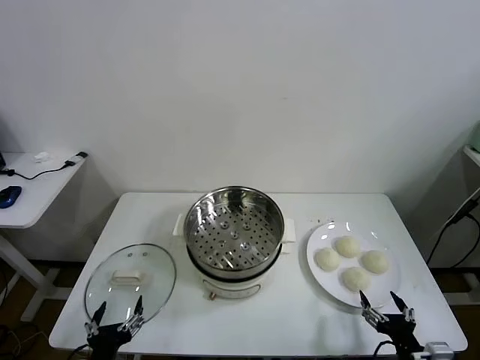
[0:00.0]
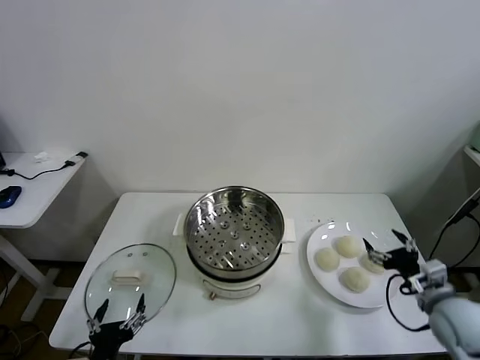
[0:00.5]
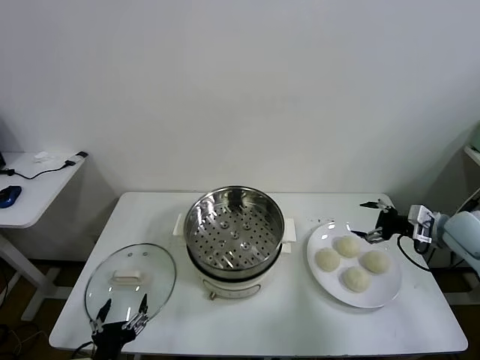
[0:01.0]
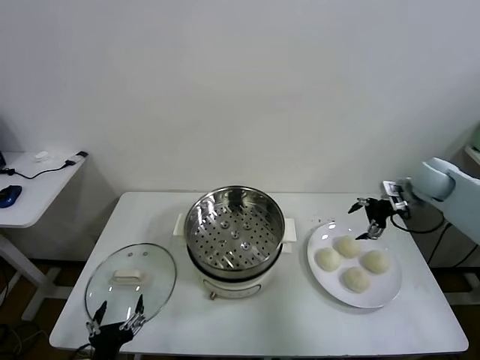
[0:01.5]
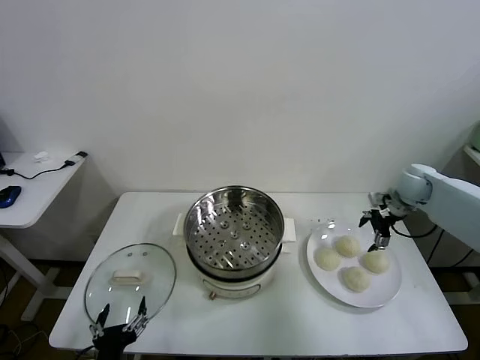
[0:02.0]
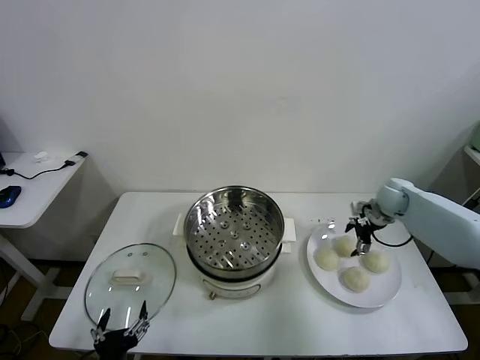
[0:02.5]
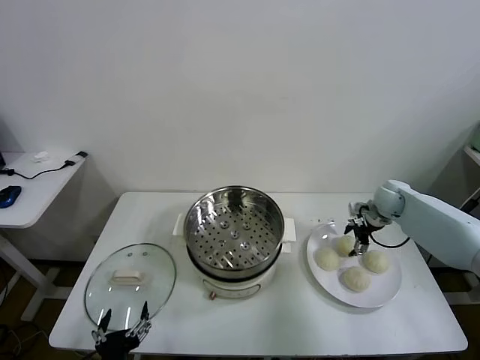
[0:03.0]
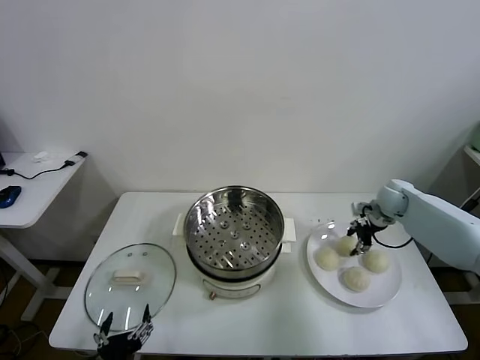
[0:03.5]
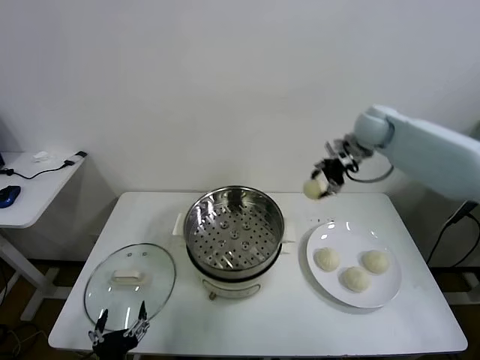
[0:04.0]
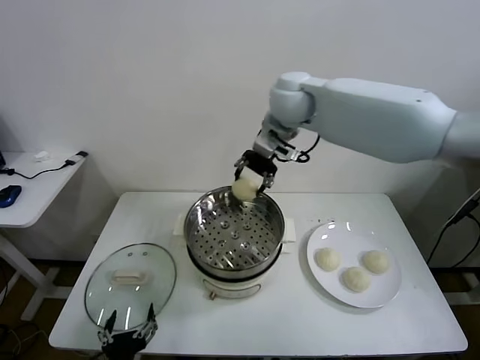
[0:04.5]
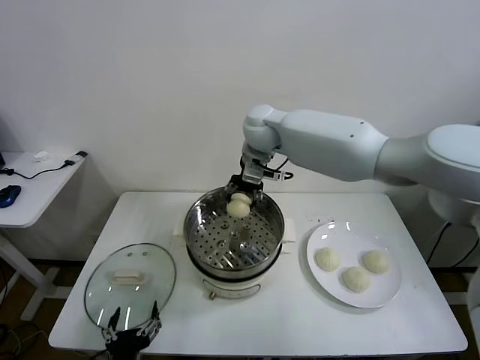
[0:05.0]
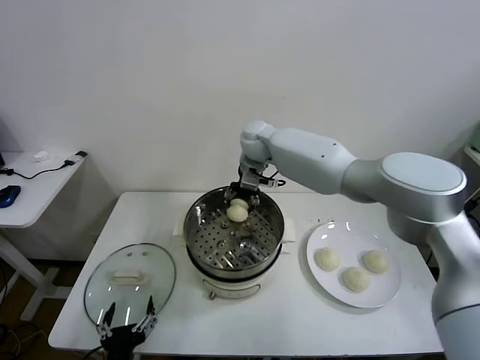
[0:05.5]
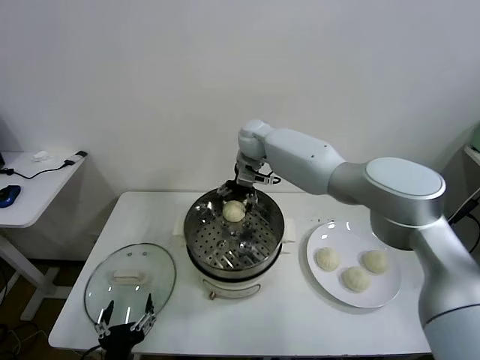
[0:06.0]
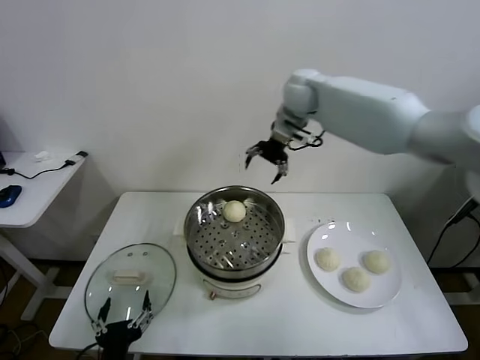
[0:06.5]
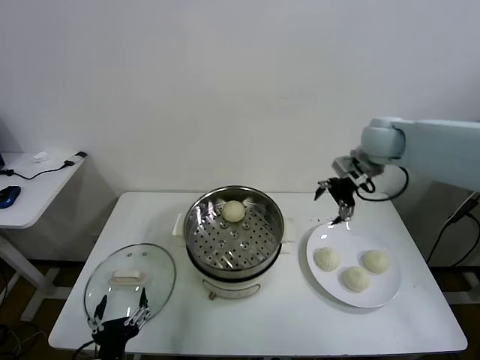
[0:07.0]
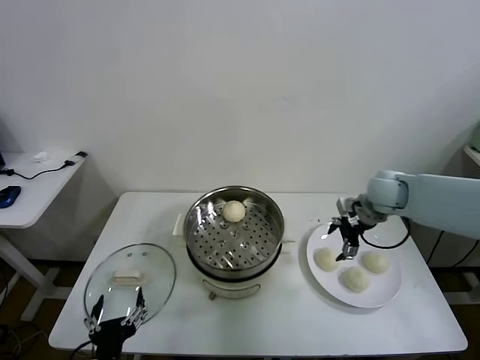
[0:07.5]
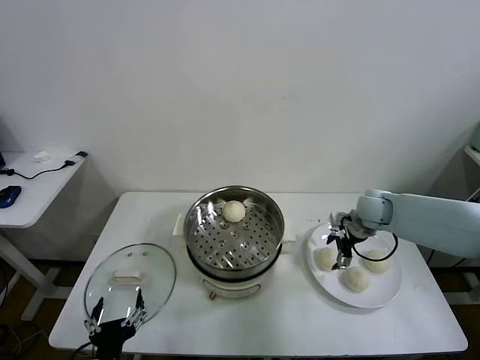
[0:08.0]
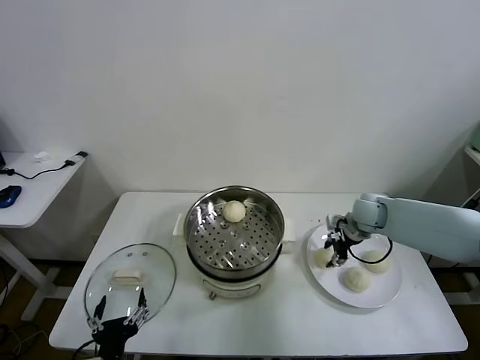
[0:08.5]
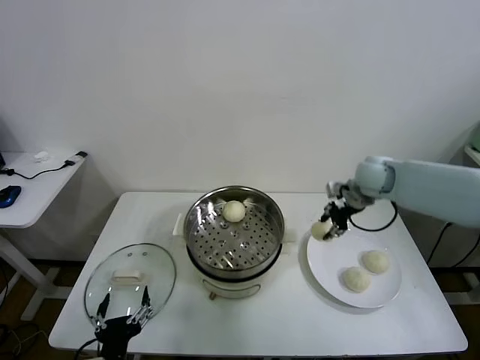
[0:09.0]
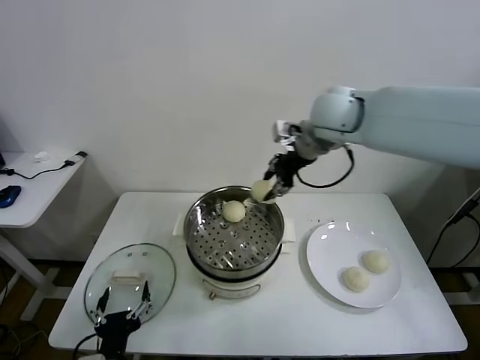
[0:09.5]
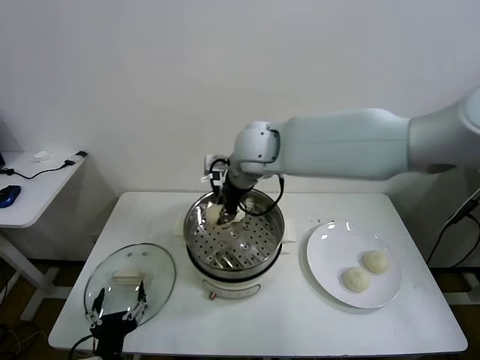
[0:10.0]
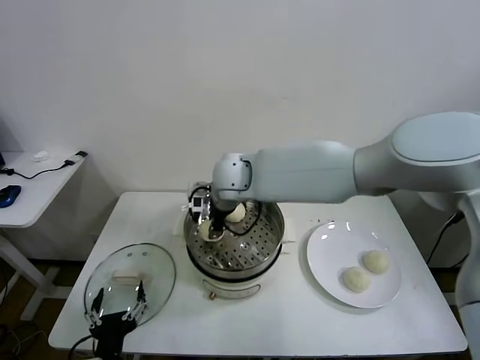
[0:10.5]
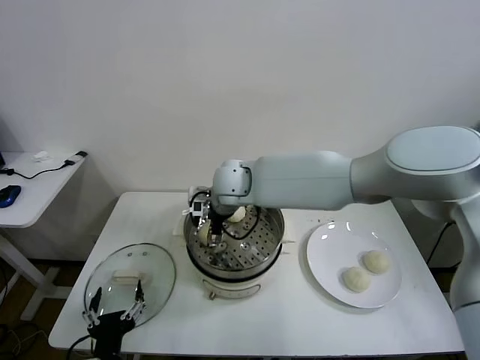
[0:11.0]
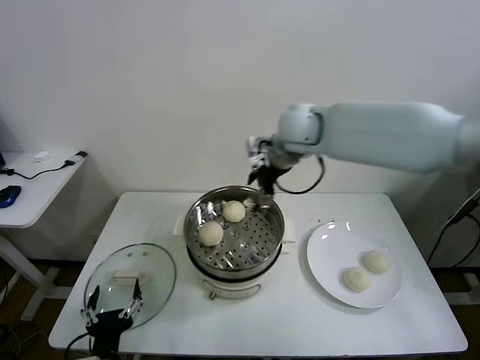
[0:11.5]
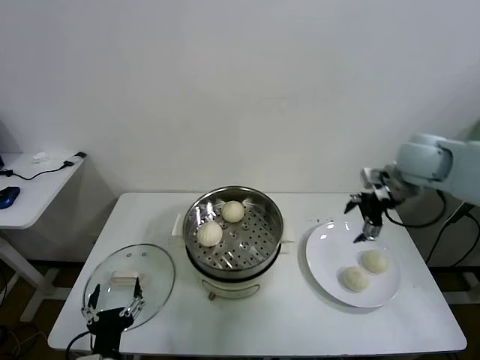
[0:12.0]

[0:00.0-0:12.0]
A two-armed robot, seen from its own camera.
Task of the whole recording: take steamed baozi put them in steamer.
Step, 0:00.0 to 0:03.0: Grasp the baozi in the plate with right gripper.
Step, 0:03.5 to 0:06.0: Place the baozi on the steamer with right gripper.
Step, 0:06.5 to 0:08.0: Grasp the baozi in the plate with right gripper.
Step, 0:09.0 to 0:11.0: Place the baozi on the steamer with right gripper.
0:02.0 to 0:04.0: The right gripper moves upward and to the left, approximately 25 cm, and closes up.
0:04.0 to 0:06.0: The right gripper shifts roughly 25 cm to the left, and opens up.
0:06.0 to 0:08.0: The right gripper shifts about 35 cm to the right, downward and backward.
0:08.0 to 0:10.0: The right gripper shifts about 35 cm to the left and upward, and closes.
0:10.0 to 0:12.0: The right gripper goes about 35 cm to the right, and opens up.

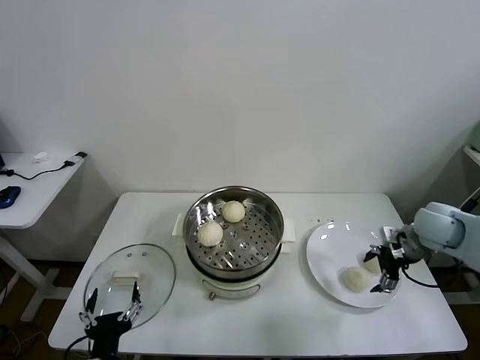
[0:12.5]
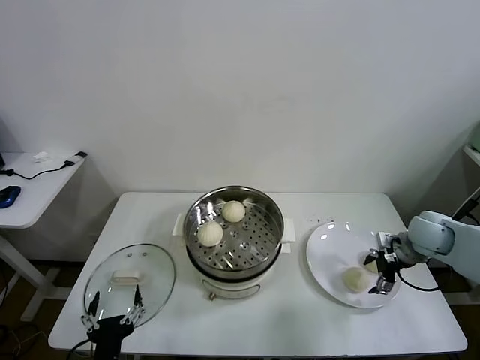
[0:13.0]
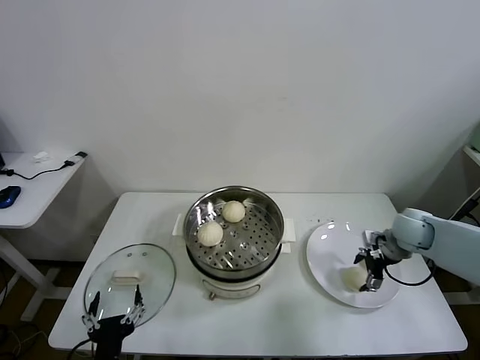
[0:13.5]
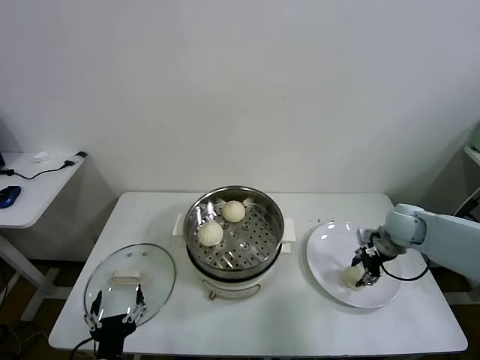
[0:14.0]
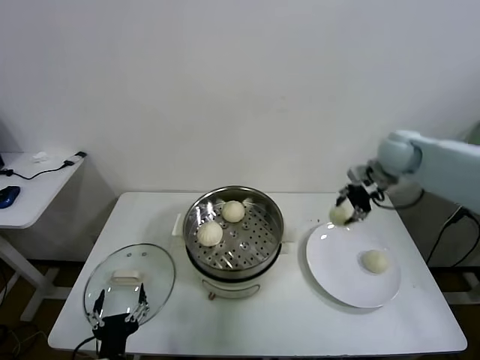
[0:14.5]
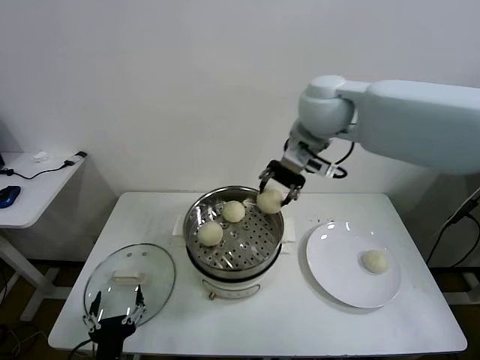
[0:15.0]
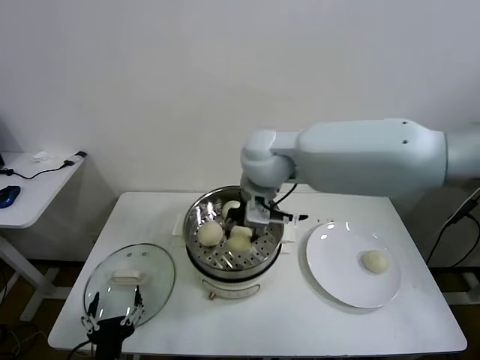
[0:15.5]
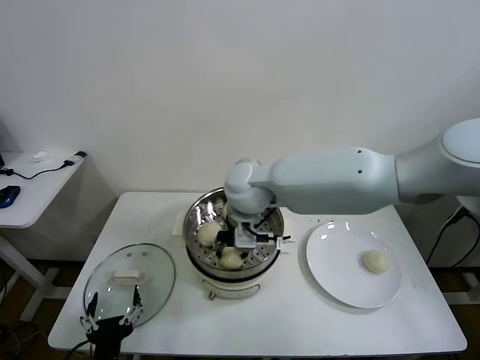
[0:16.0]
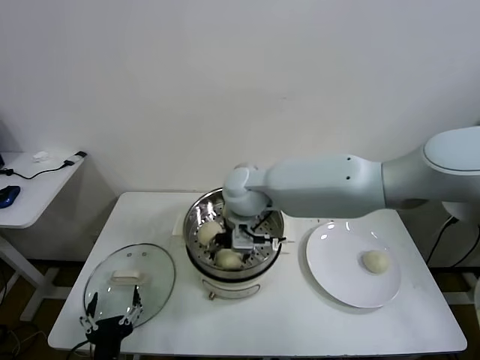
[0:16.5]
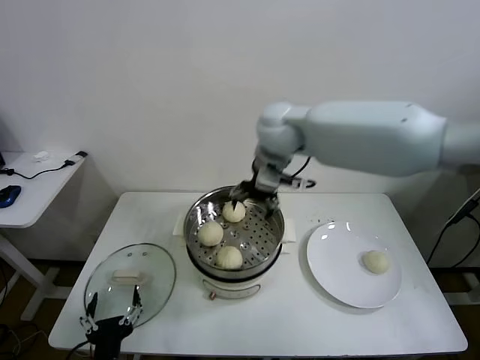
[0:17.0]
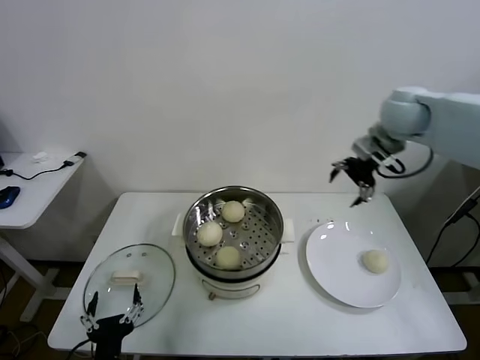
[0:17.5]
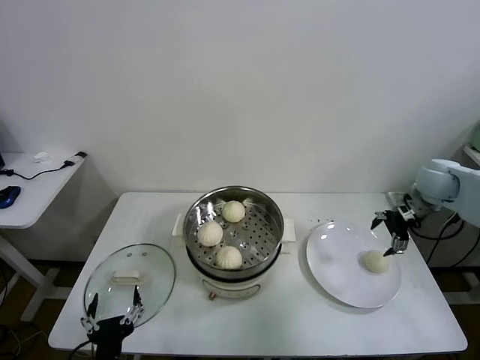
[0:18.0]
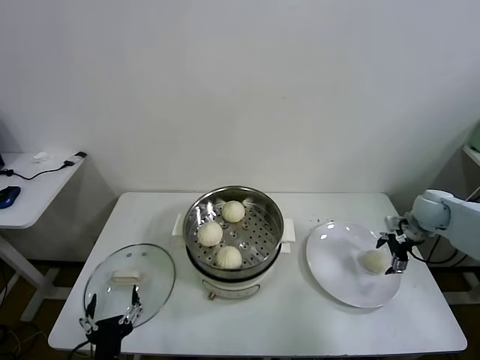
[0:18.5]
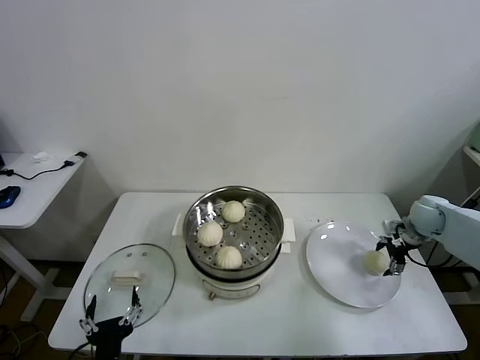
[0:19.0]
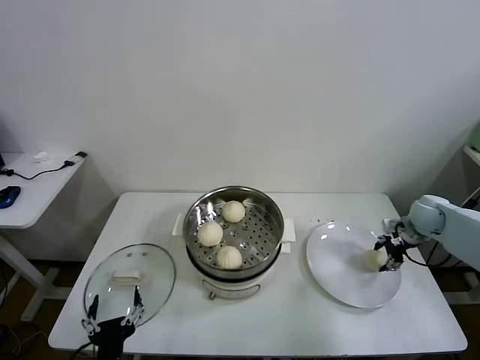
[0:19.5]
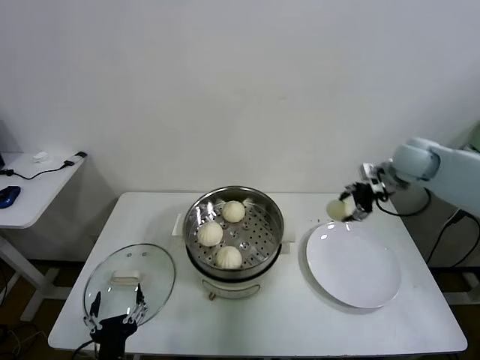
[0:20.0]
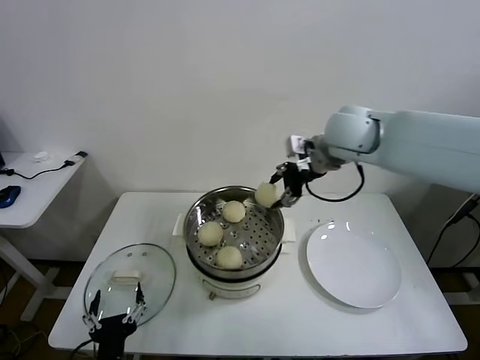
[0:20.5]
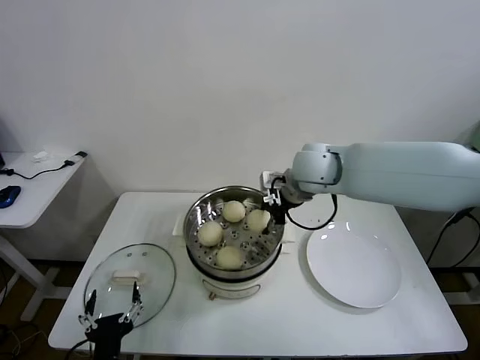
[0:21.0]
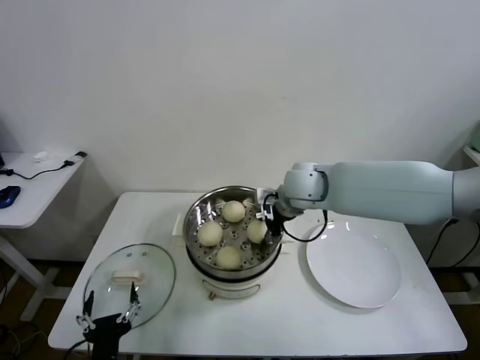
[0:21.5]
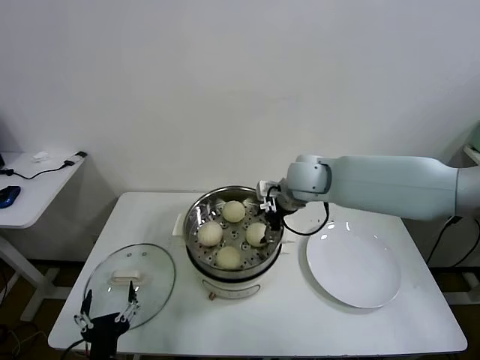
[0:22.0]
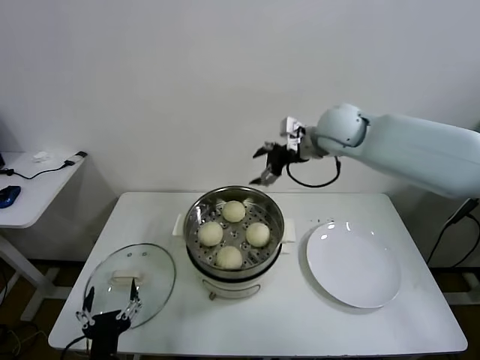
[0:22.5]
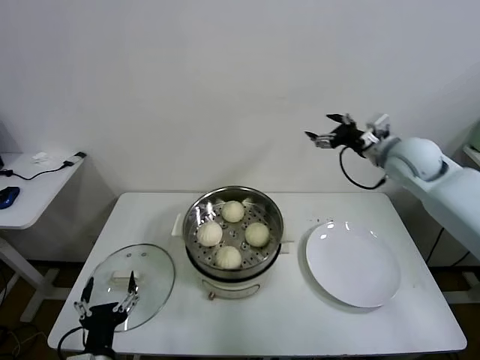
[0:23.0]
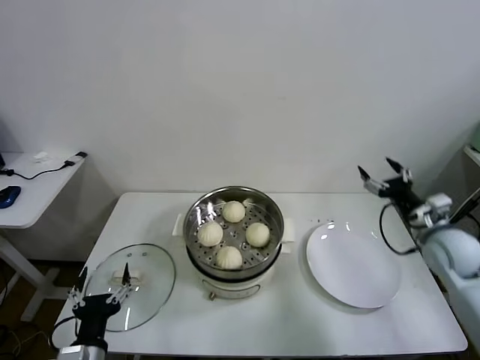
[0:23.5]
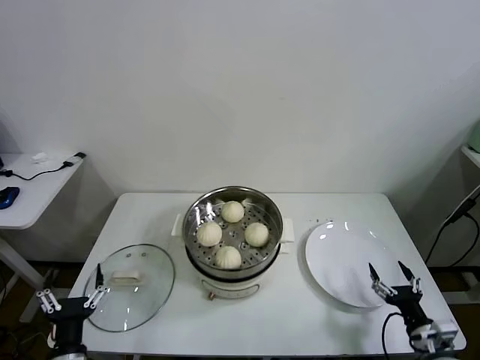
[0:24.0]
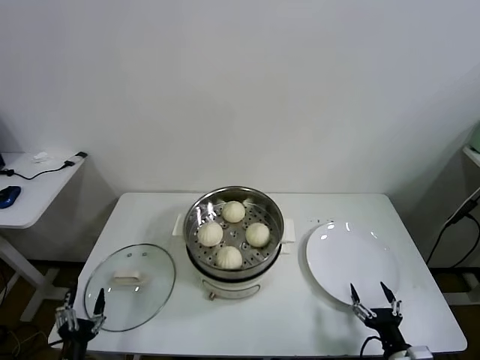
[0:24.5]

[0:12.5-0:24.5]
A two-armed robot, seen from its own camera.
Task of the whole recording: take steamed baozi put them in steamer.
Step, 0:14.0 to 0:16.5: Place the baozi on the steamer with right gripper.
Step, 0:17.0 to 0:19.0: Grasp the baozi in the plate with right gripper.
Step, 0:19.5 to 0:21.5: Place the baozi on the steamer with right gripper.
0:12.5 to 0:14.5: The right gripper is displaced upward, forward and to the left by some 20 cm, and closes its fingers.
0:14.5 to 0:16.5: The right gripper travels to the left by about 35 cm, and opens its fingers.
0:16.5 to 0:18.5: The right gripper shifts some 50 cm to the right.
0:18.5 to 0:20.5: The right gripper heads to the left and upward, covering some 35 cm, and closes.
0:20.5 to 0:22.5: The right gripper travels downward and back again, approximately 10 cm each way, and opens up.
0:22.5 to 0:24.5: The left gripper shifts roughly 15 cm to the left and downward, while the right gripper goes roughly 60 cm backward, downward and to the right.

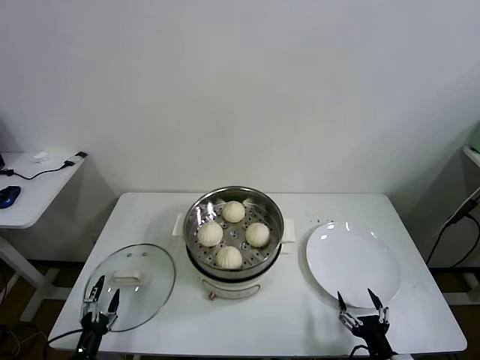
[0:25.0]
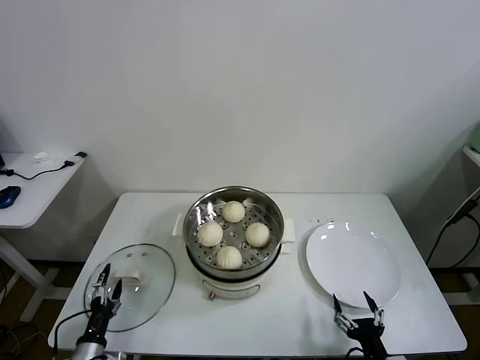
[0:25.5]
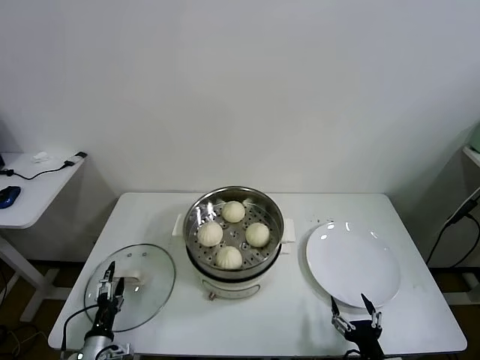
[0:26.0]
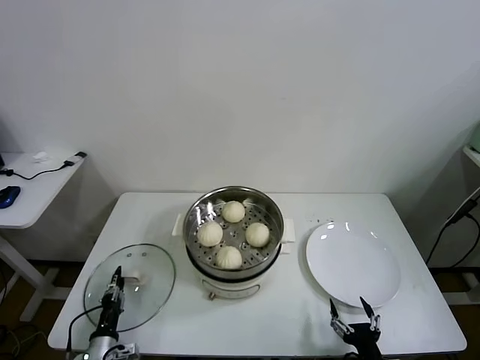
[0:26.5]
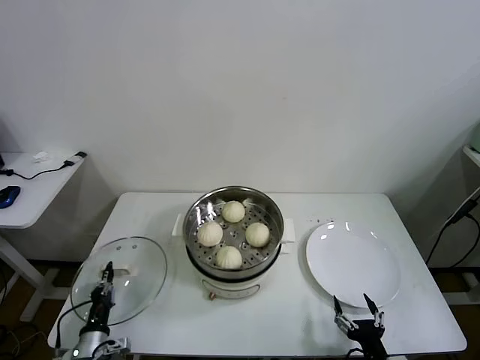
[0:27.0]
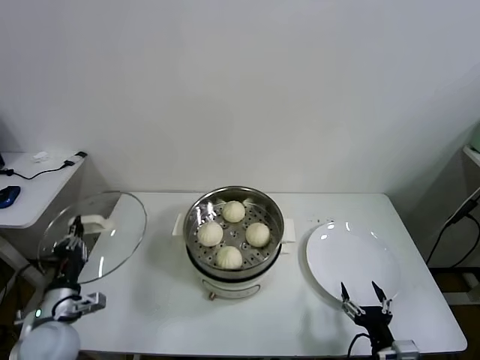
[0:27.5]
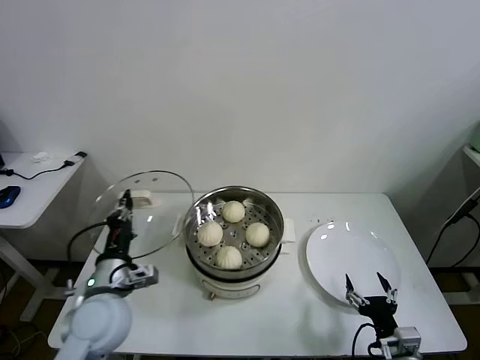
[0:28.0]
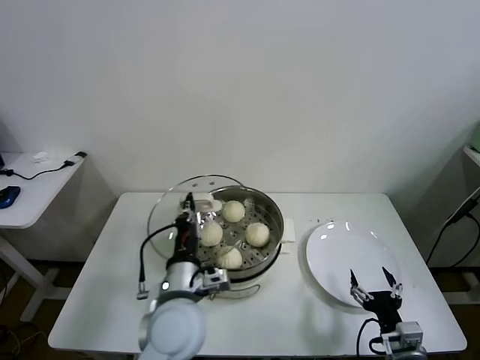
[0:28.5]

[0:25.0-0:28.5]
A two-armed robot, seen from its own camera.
Task of the whole recording: take steamed baozi put them in steamer.
0:25.0 to 0:27.0: The left gripper moves forward, some 5 cm, and closes.
0:27.0 to 0:28.5: The right gripper shifts roughly 5 cm upward. Meanwhile the left gripper heads upward and to the right, covering some 35 cm.
